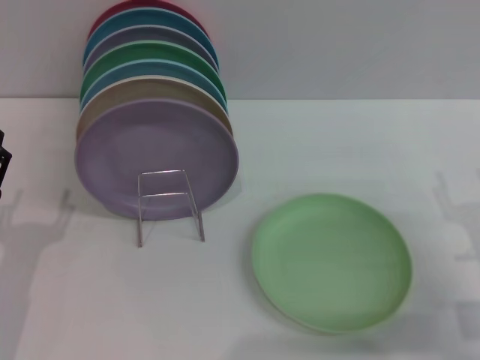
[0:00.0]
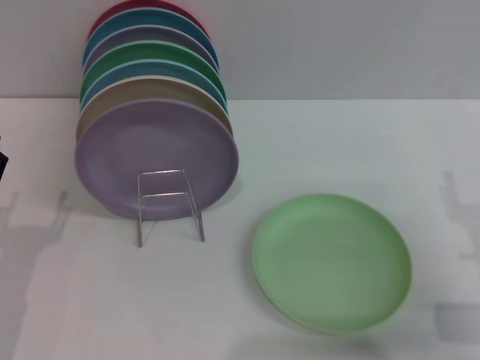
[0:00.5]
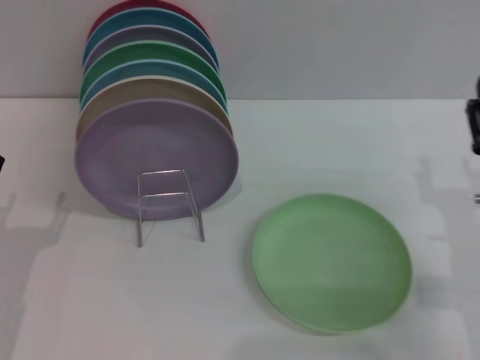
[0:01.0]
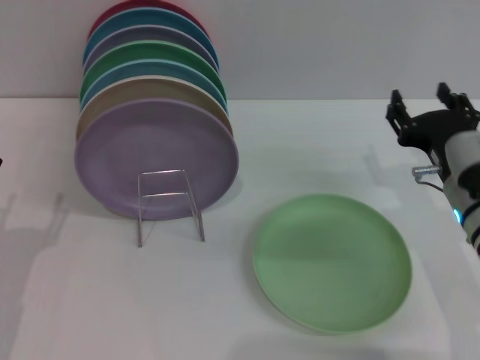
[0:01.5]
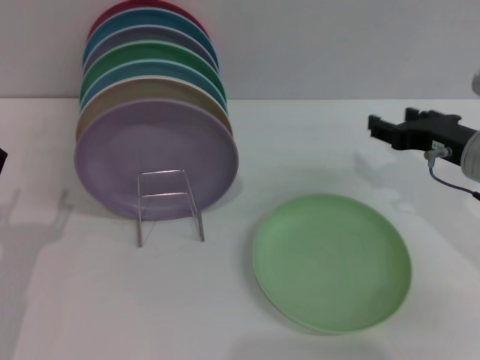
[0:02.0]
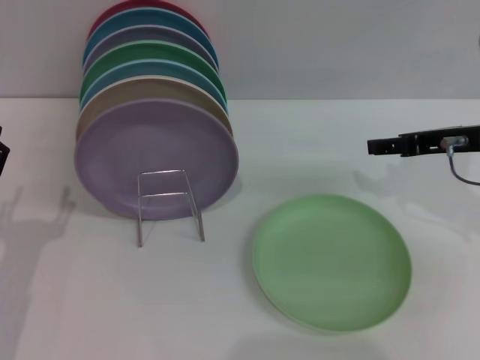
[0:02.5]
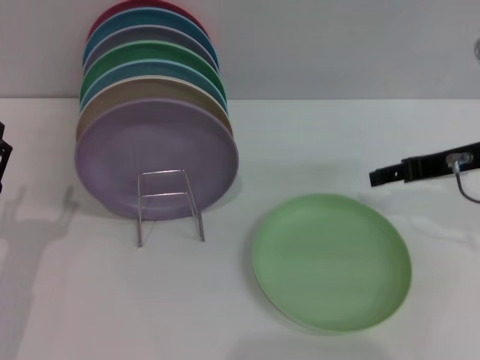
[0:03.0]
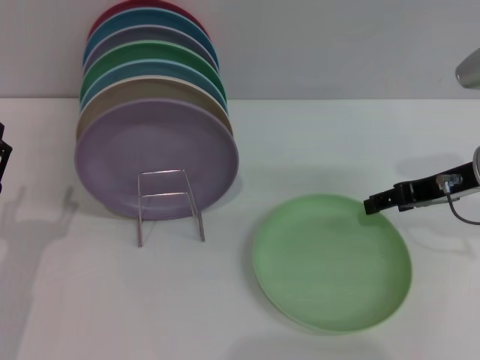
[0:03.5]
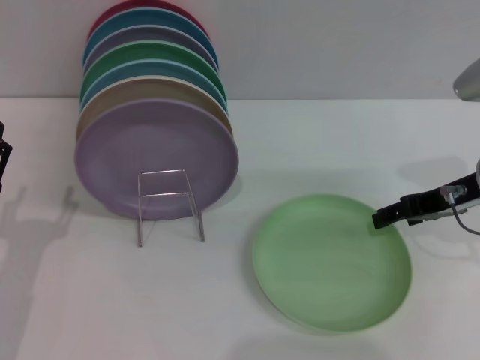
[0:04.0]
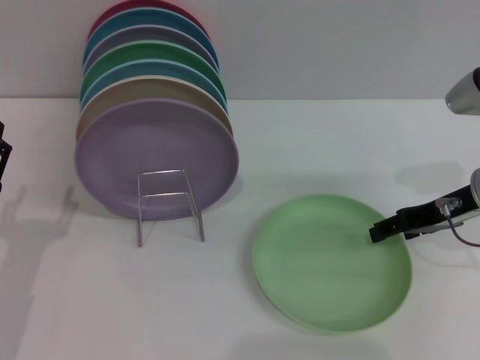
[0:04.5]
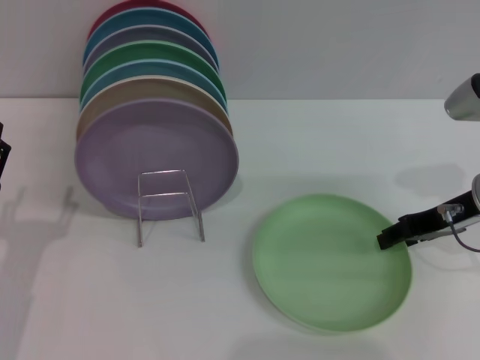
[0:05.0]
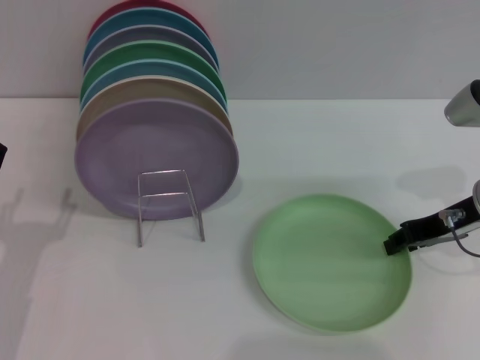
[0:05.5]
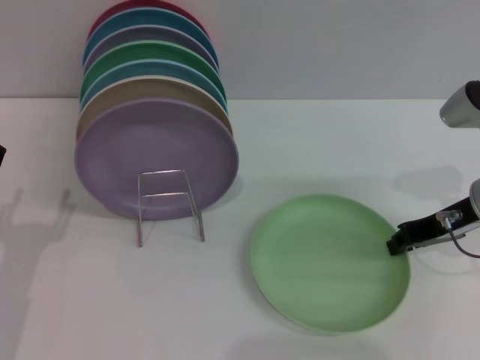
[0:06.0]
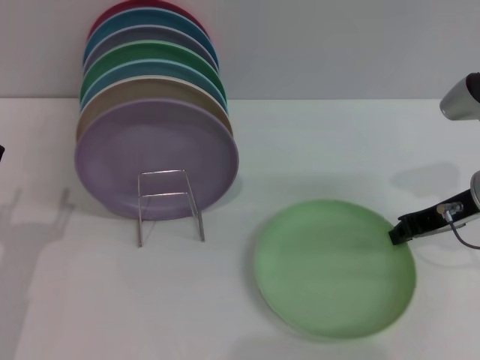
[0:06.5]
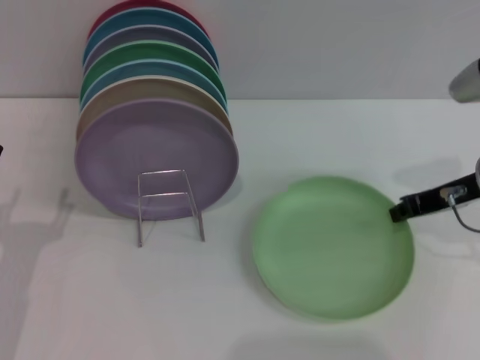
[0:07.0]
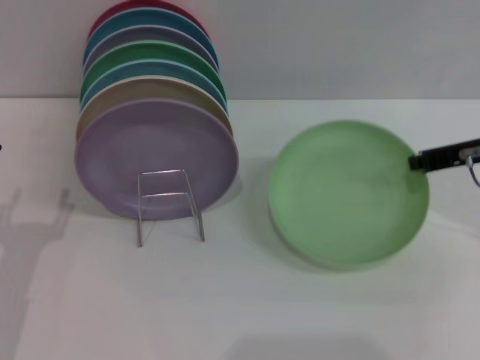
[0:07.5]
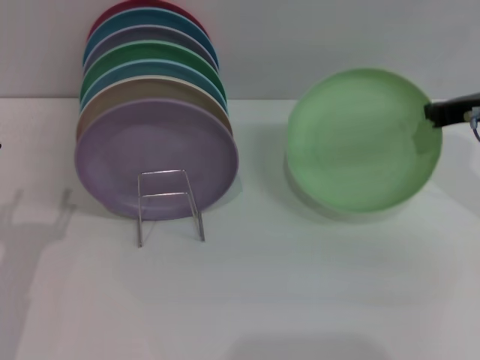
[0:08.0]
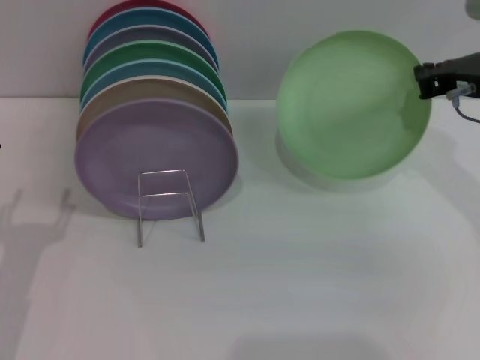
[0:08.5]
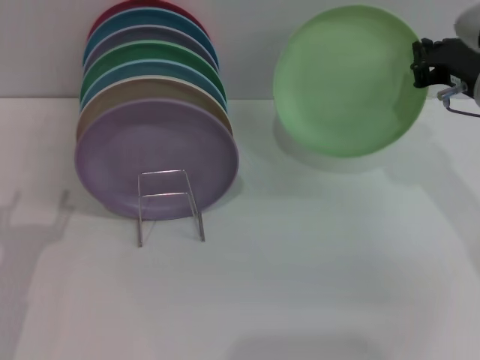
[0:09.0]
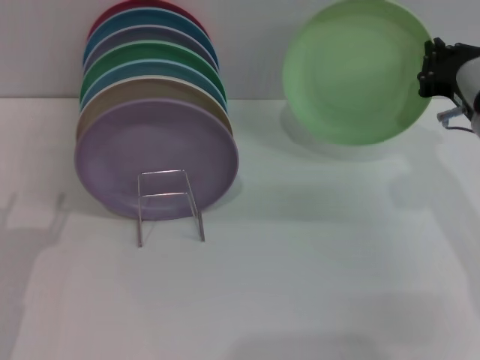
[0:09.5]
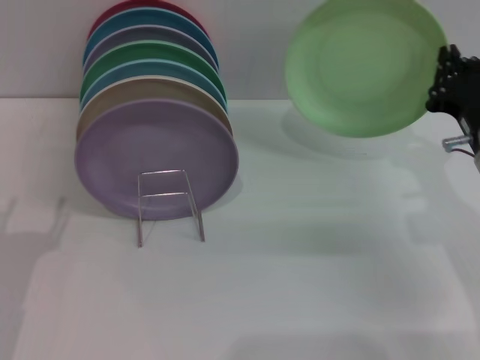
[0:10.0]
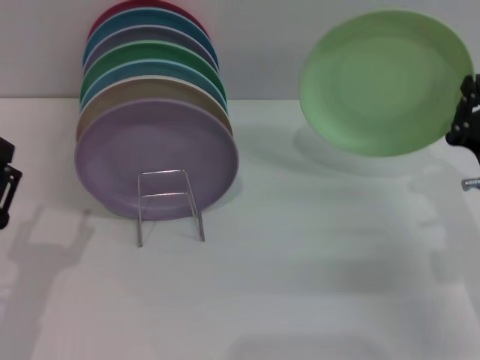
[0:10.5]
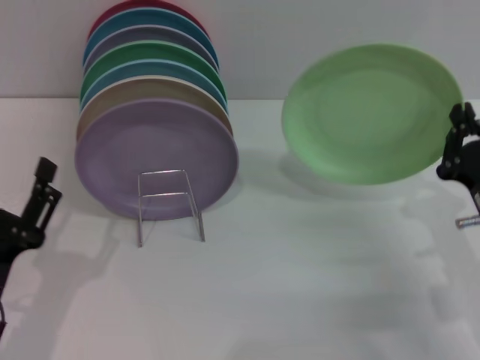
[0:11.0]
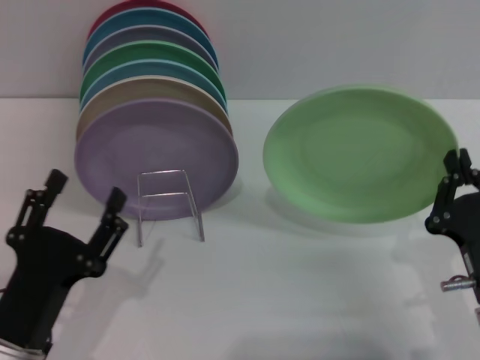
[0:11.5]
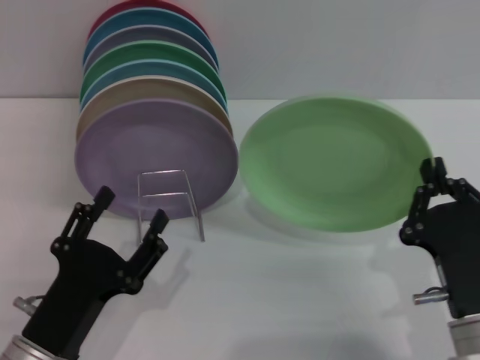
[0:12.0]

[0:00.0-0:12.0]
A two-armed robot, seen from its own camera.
Task of the whole recording: Grip the plate with one hand, pass it to the other, then set it on the shelf.
Step, 0:00.0 to 0:07.5: Pick up the plate with the right gripper.
0:00.0 to 0:02.0: The right gripper moves forward and upward, some 15 cm.
0:04.0 to 0:06.0: The right gripper closes up.
0:06.0 to 0:08.0: The right gripper goes approximately 5 cm upward.
0:08.0 to 0:10.0: The right gripper heads downward, covering roughly 10 cm.
0:10.0 to 0:12.0: The right gripper shifts roughly 15 cm backward and to the left; the left gripper heads to the right, covering some 10 cm.

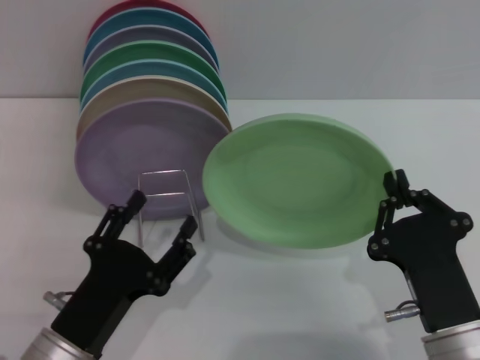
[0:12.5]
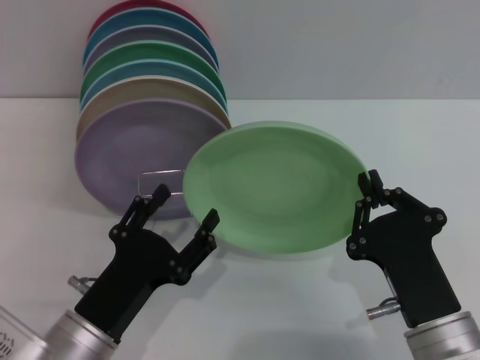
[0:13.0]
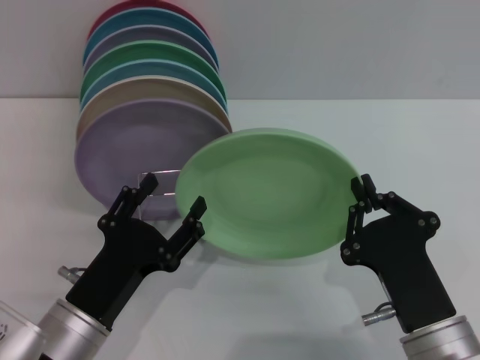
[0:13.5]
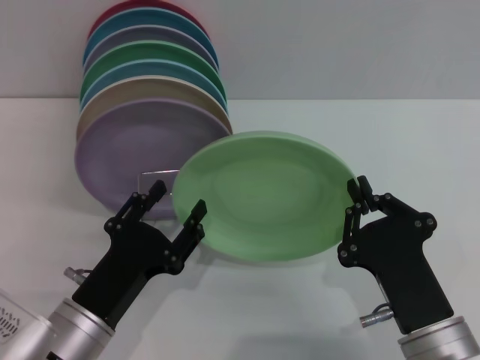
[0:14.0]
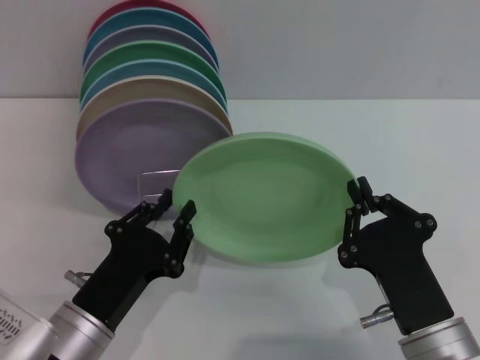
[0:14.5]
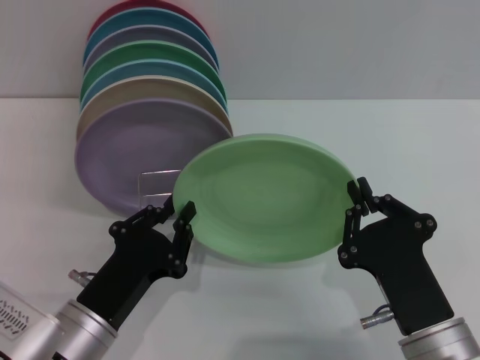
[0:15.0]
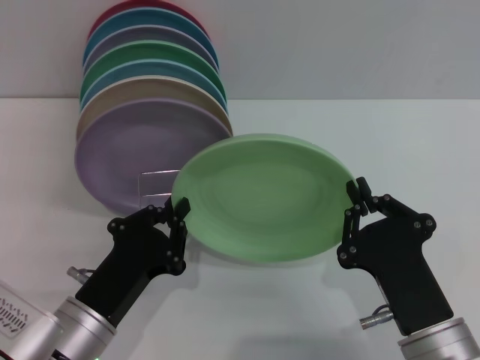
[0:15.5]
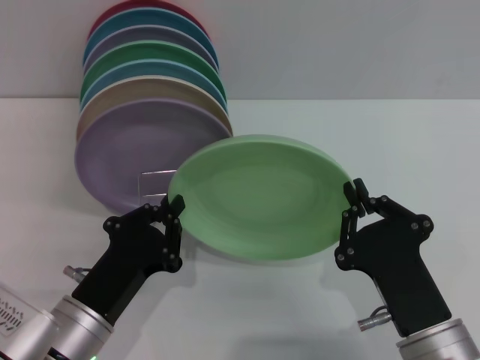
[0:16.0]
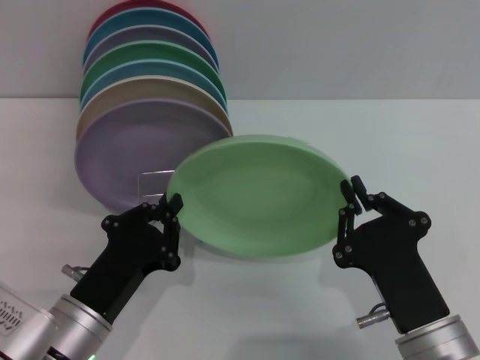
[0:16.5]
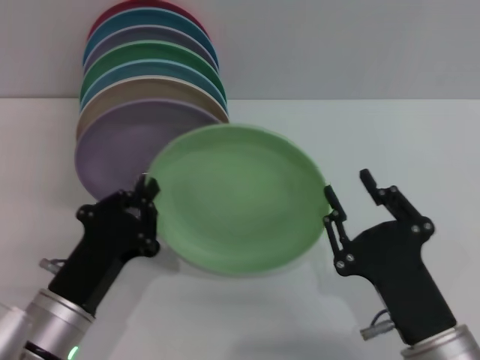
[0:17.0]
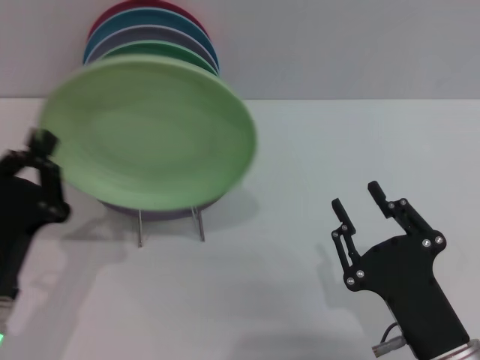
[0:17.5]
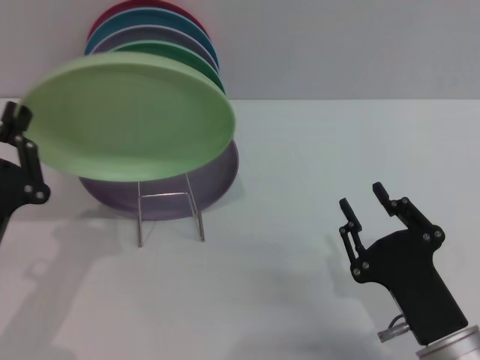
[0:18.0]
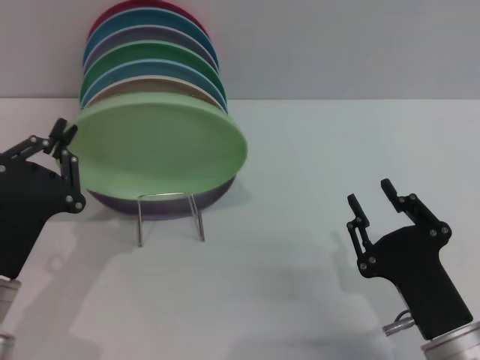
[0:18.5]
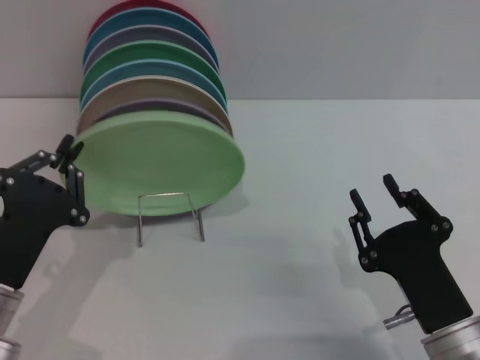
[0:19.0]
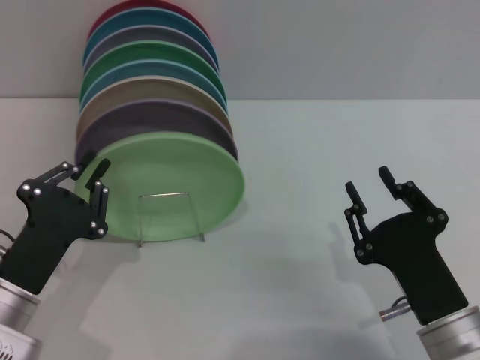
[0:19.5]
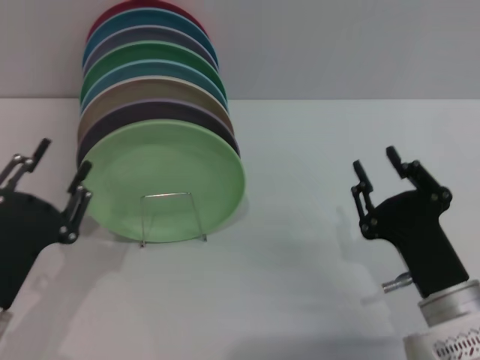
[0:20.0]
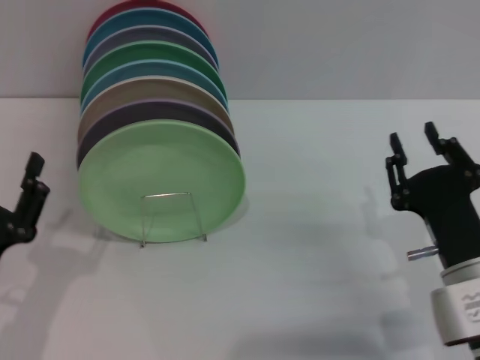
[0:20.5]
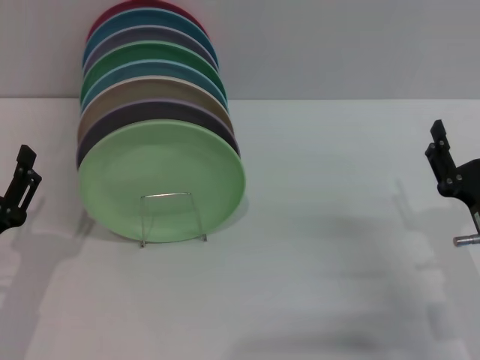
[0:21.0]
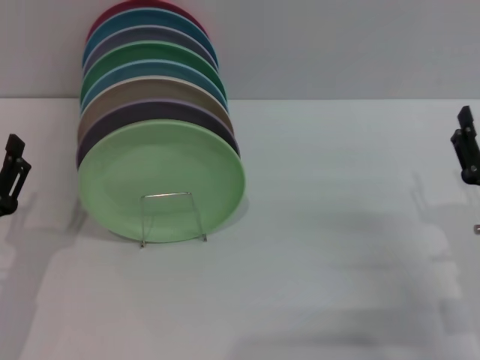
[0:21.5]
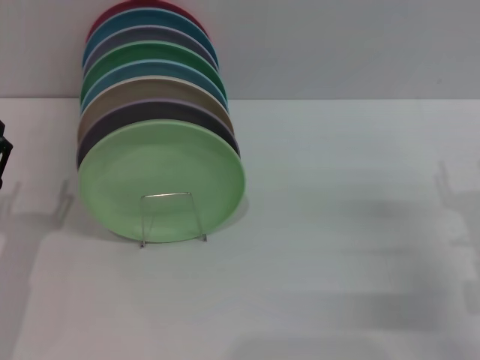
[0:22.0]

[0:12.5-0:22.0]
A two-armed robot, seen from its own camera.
Task of the whole recording: Grip the plate with one hand, pass it to the other, then set it on the shelf.
Step, 0:12.5 to 0:17.0: Pass the plate from the right gripper to the left gripper.
Step, 0:17.5 to 0:20.5: Place the plate on the shelf with the left gripper.
0:12.5 to 0:14.5: The left gripper closes.
0:14.5 to 0:16.5: The left gripper closes its fingers.
0:16.5 to 0:18.0: The left gripper goes about 5 cm to the left. The right gripper opens its fingers.
0:18.0 to 0:20.0: The left gripper opens up.
0:20.0 to 0:22.0: The left gripper ends up roughly 5 cm from where it was, and opens its fingers. The right gripper goes roughly 10 cm to the right.
